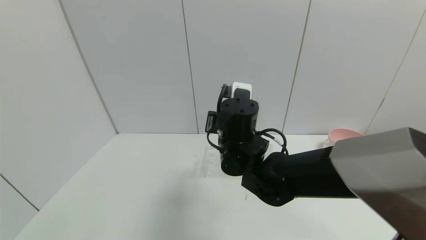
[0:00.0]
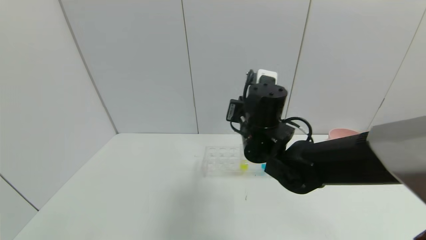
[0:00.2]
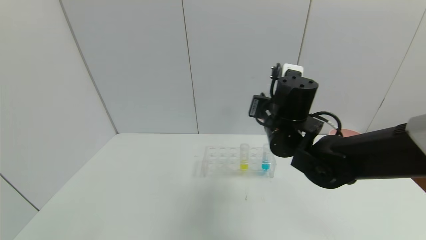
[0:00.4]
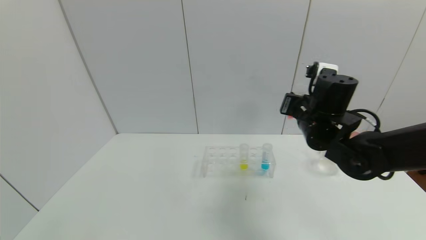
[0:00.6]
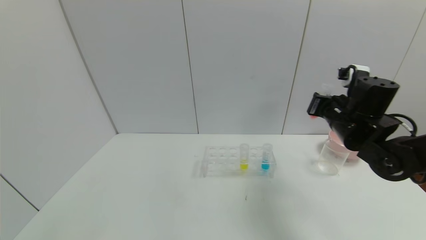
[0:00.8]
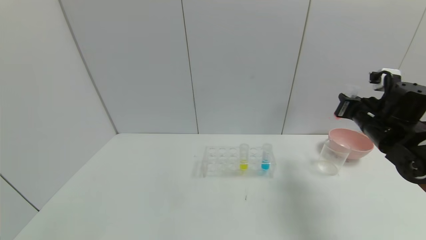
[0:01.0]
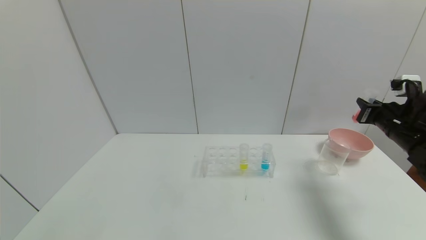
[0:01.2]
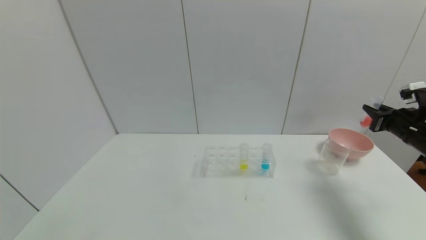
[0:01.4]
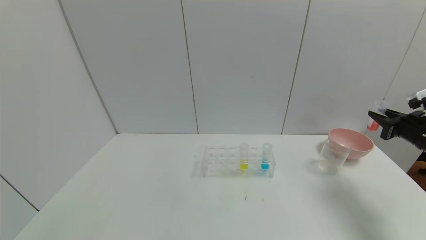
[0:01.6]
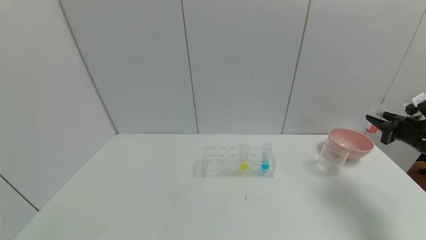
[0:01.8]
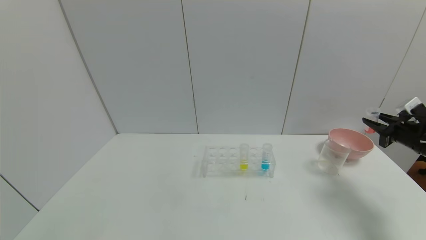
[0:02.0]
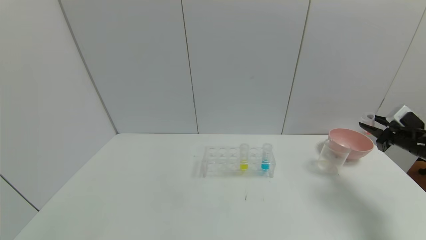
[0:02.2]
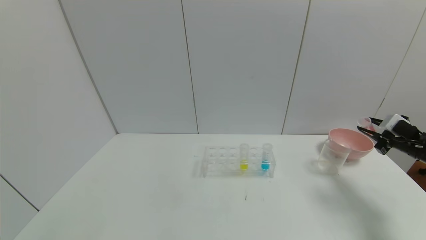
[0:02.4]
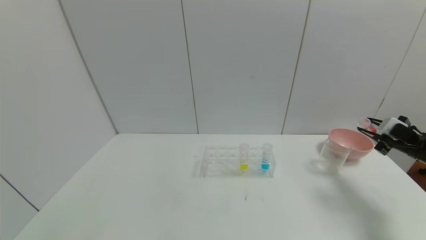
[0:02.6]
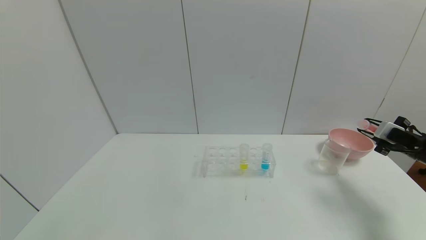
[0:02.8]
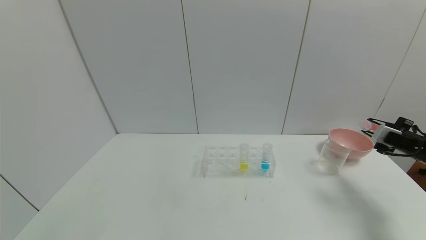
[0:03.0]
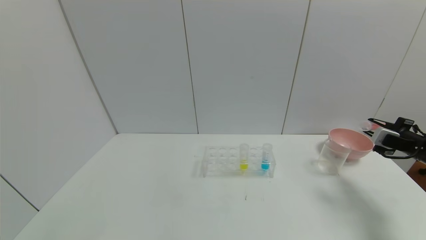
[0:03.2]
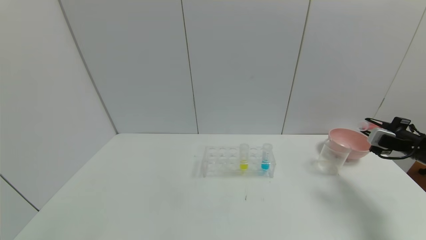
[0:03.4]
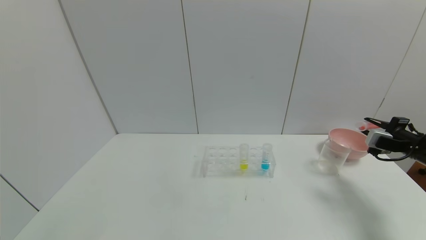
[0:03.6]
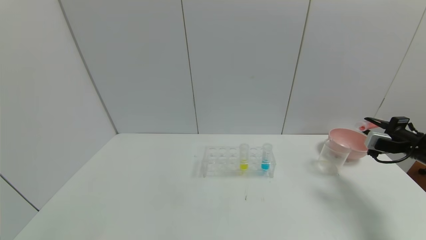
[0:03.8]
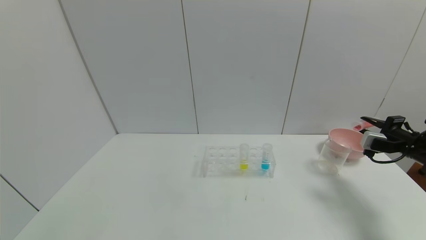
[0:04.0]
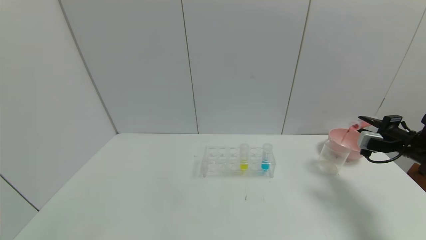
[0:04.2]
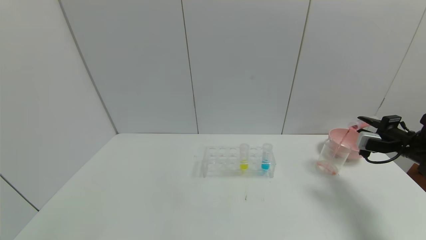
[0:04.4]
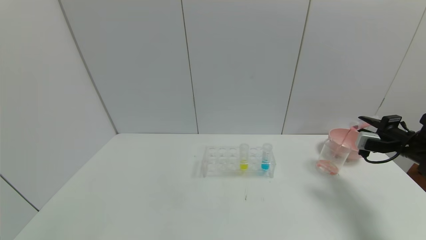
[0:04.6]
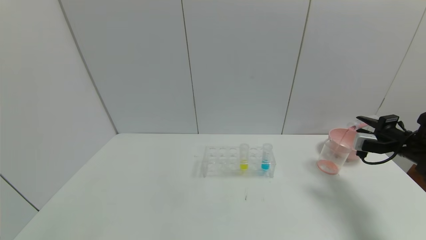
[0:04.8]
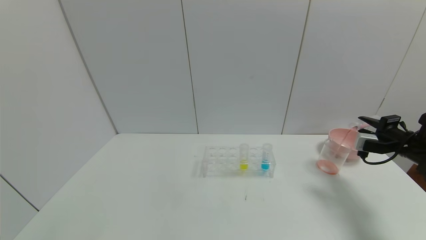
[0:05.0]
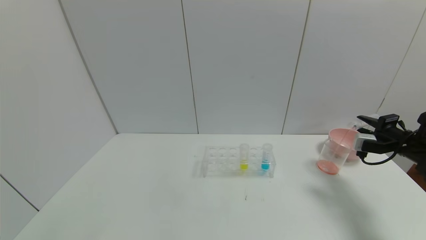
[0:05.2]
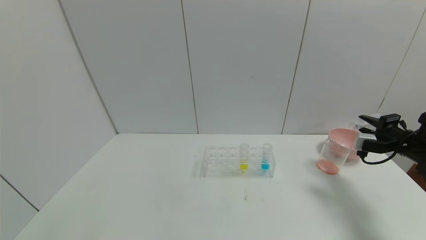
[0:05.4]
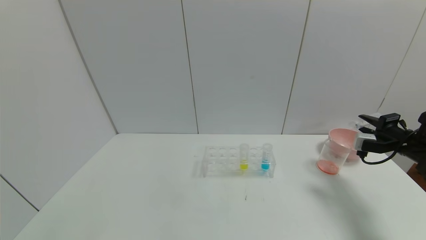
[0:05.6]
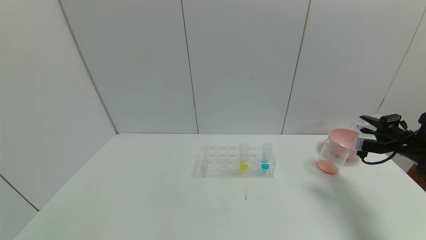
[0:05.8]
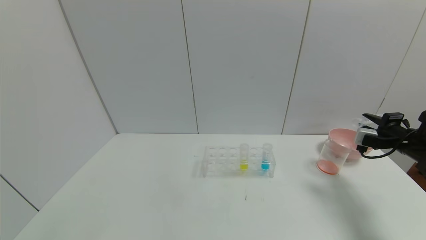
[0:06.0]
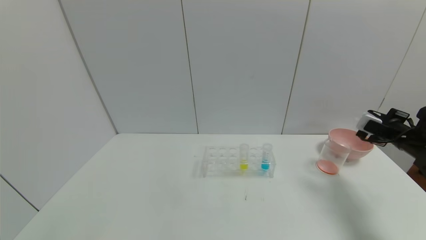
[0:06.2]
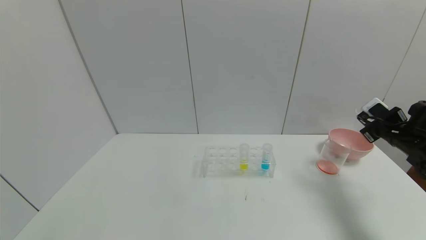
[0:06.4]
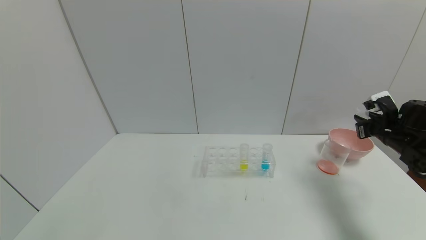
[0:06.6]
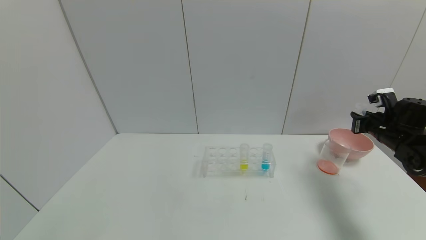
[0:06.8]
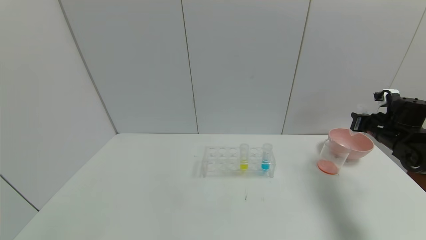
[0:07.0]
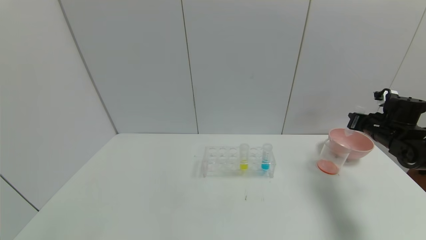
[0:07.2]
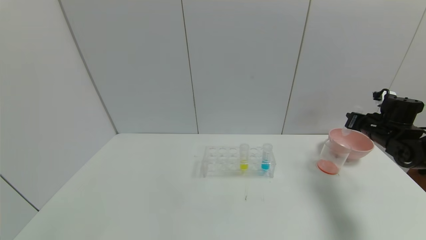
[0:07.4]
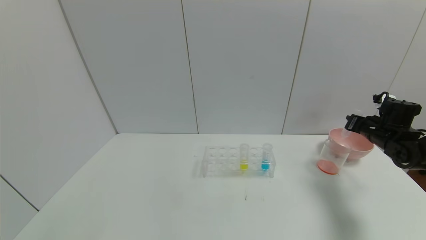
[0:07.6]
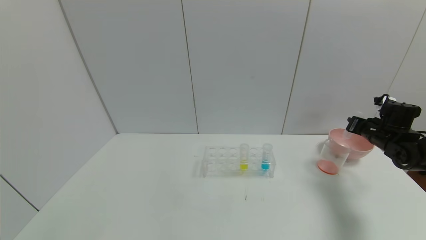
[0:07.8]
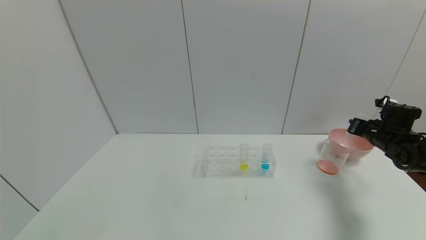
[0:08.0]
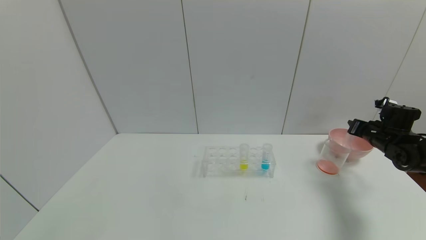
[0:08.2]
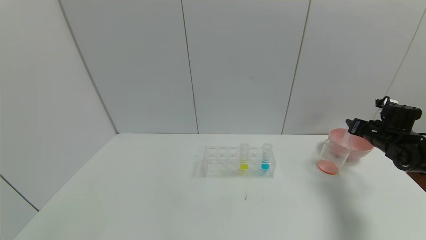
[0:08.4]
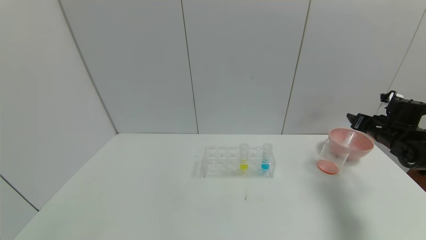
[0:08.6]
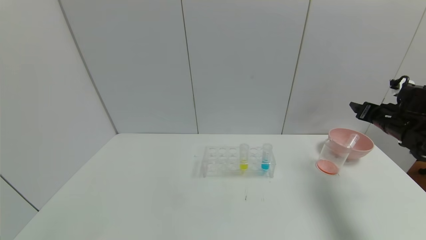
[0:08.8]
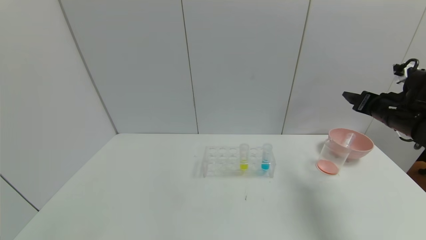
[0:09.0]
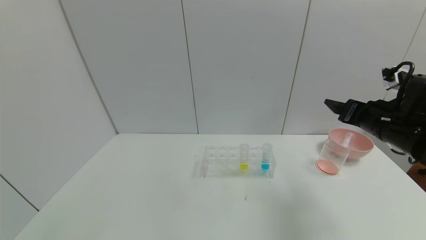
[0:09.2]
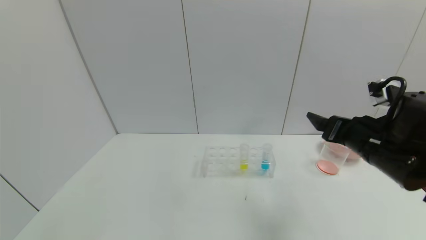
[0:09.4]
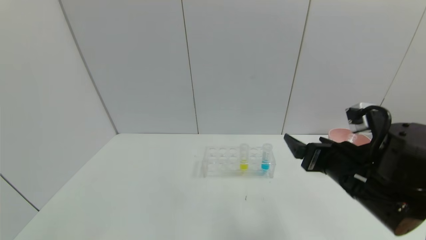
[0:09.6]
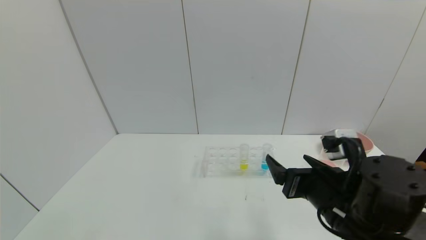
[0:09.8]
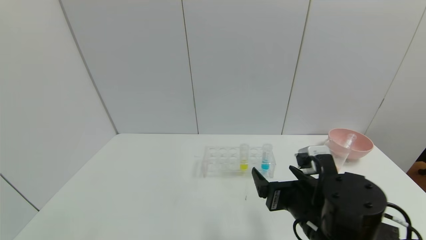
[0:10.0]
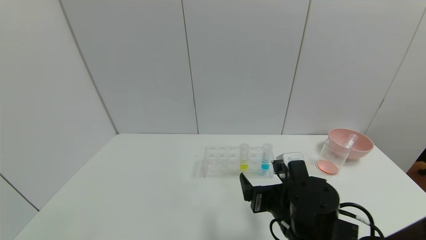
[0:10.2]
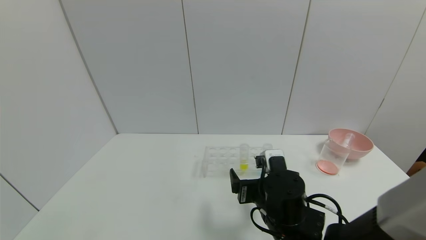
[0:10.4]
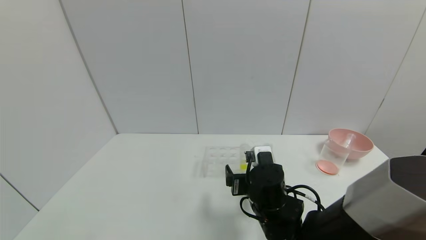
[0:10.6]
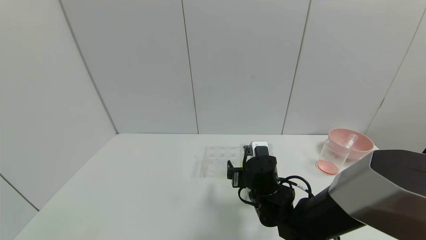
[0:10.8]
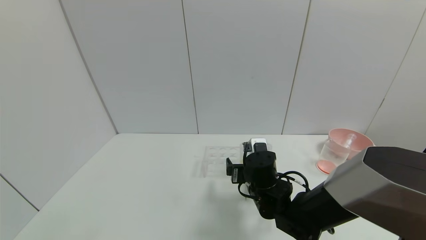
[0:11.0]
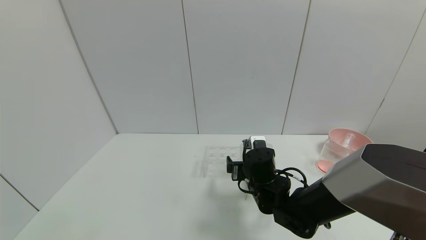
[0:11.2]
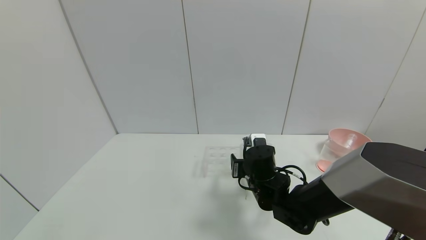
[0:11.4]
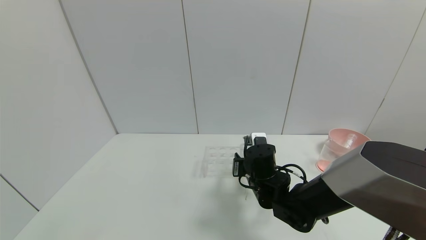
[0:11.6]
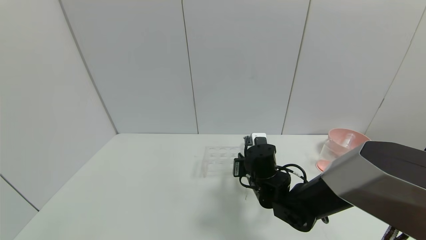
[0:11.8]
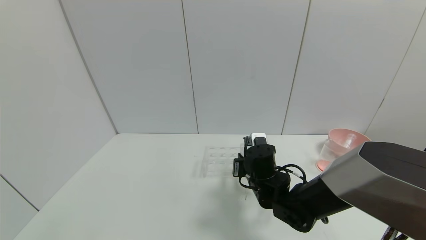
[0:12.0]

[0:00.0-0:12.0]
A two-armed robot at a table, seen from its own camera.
Task of the whole recording: pick up the test tube with yellow pigment and the test tube with red pigment by grippers and pour them into the beaker.
Step, 0.0 to 5.8 s: Pour the red reagent into the graduated cylinder with the right gripper.
Step, 6.0 to 8.4 s: Place the test tube into the bowl with the right gripper.
Step, 8.6 to 11.8 s: Grasp the yellow reagent with the right gripper.
0.0 to 1.6 s: The right gripper shifts roughly 40 cm to the right.
3.0 to 4.4 s: There are only small adjustments of the grippers.
4.4 to 6.0 s: There are only small adjustments of the grippers.
6.0 to 7.6 s: The right gripper heads forward, covering about 5 cm.
7.6 to 9.0 s: The right gripper heads upward, backward and to the left, covering approximately 10 cm, and opens up.
9.0 to 10.4 s: The right gripper heads to the left and downward, covering about 30 cm.
10.4 to 12.0 s: The right gripper shifts about 10 cm forward, and closes.

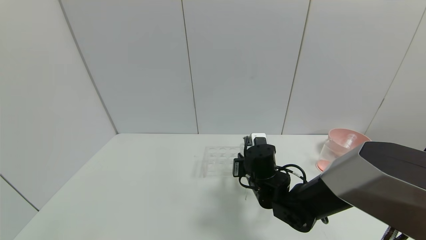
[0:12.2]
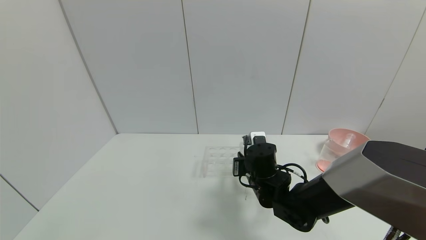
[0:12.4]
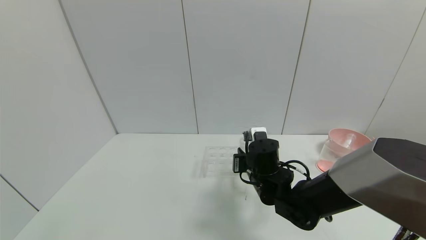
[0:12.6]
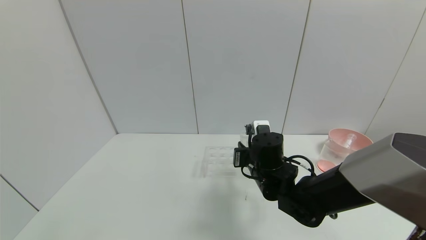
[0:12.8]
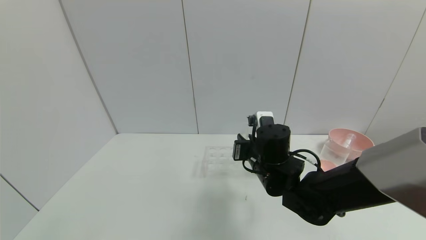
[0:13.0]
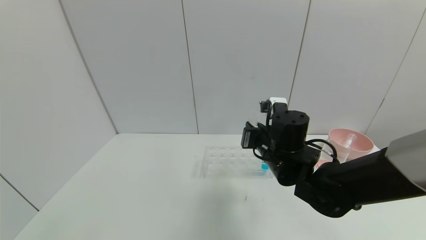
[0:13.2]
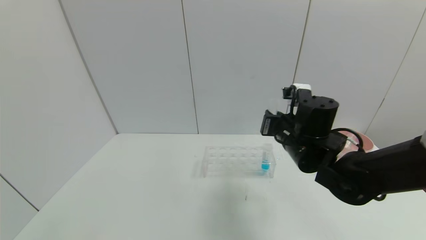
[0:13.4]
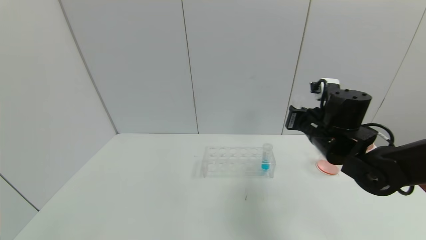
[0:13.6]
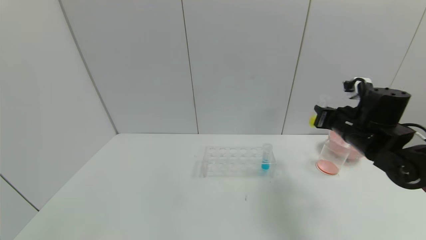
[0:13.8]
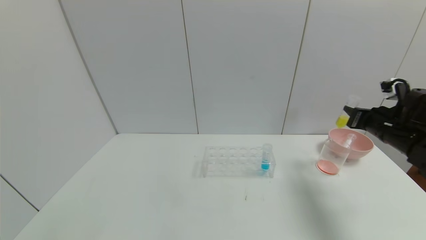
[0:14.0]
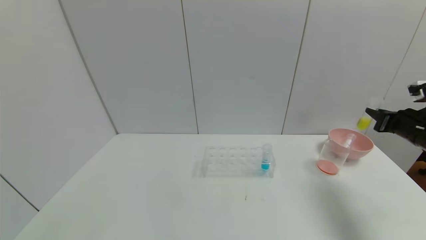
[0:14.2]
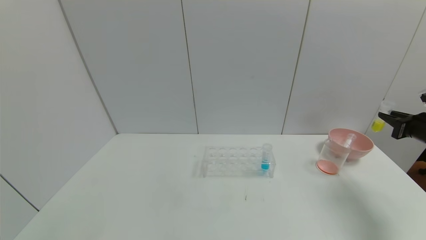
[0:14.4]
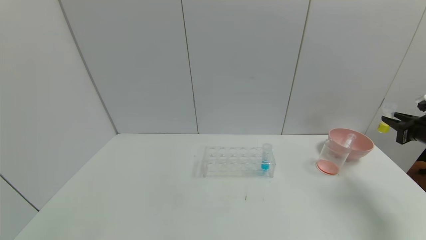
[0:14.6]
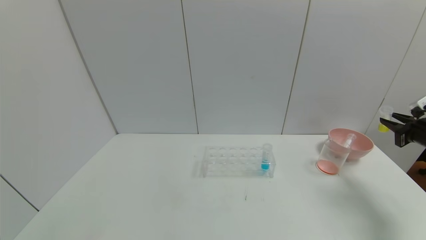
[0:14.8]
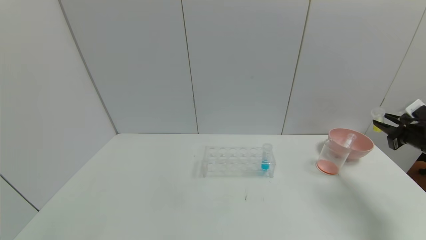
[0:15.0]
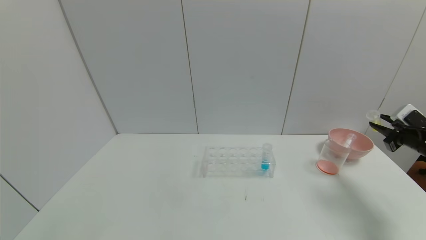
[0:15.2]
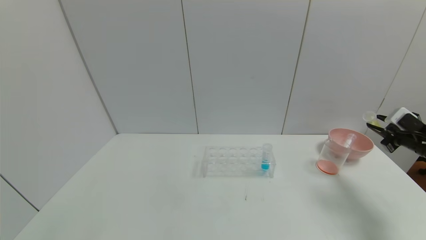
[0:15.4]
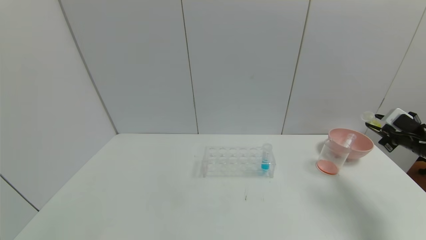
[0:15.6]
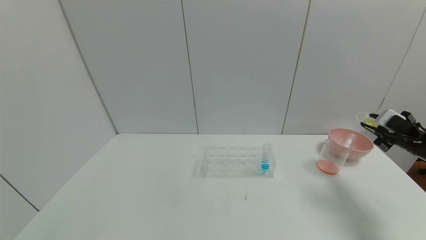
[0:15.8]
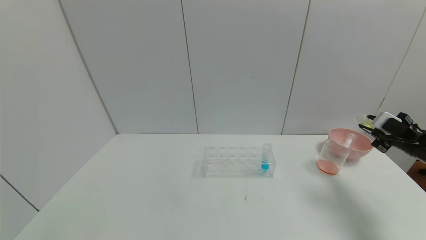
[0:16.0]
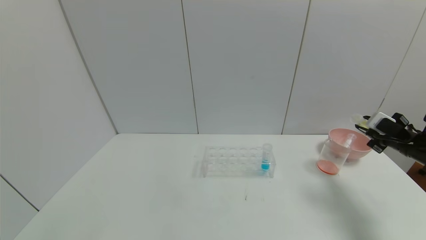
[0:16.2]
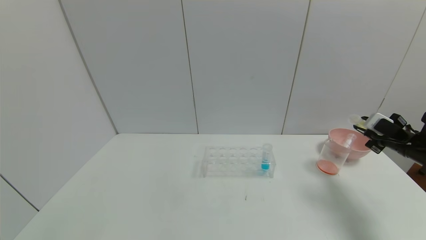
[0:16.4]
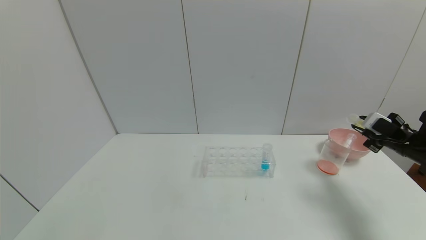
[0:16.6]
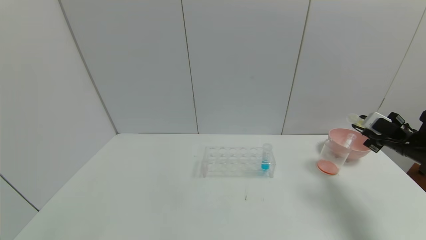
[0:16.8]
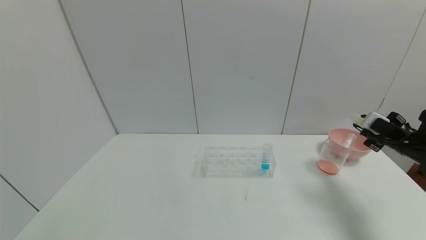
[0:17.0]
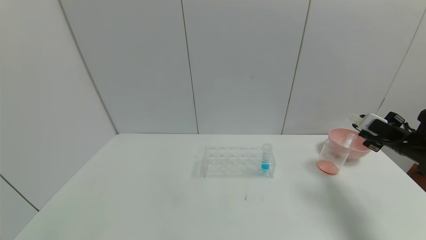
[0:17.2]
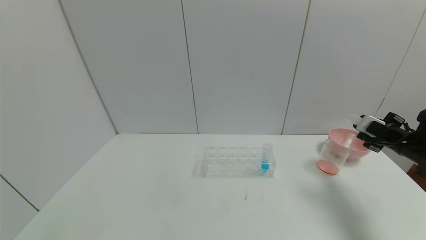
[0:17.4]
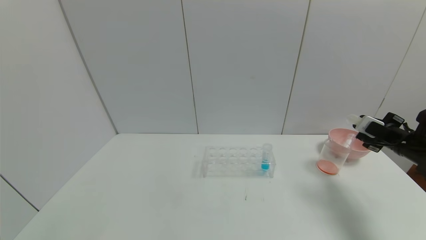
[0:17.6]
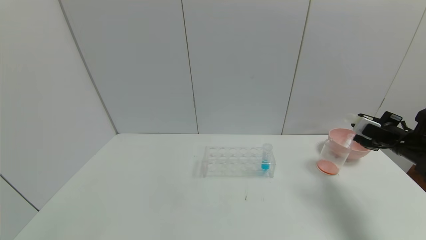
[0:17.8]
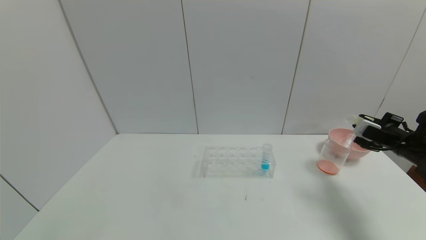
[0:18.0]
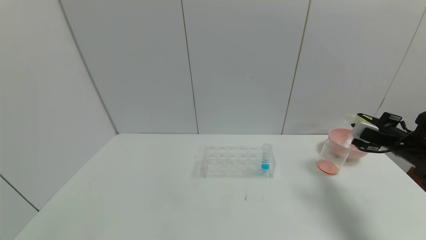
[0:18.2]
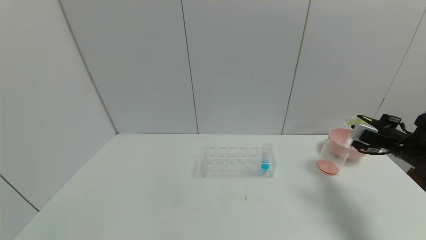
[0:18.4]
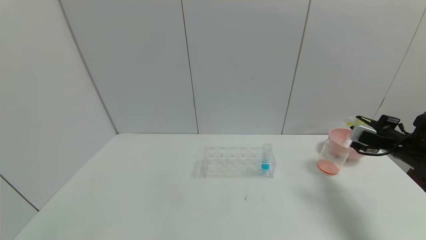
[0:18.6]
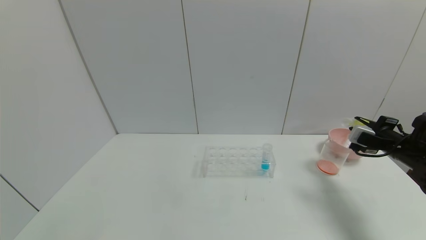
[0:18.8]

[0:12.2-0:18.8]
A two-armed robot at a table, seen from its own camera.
Task of the whole recording: pick up the test tube with yellow pigment and the test tube with red pigment by grippers and pour them into the beaker.
12.2 to 13.8 s: The right gripper moves to the right and upward, about 25 cm.
13.8 to 15.4 s: The right gripper heads to the right, covering some 20 cm.
15.4 to 17.2 s: The grippers move only a little.
17.2 to 18.8 s: There are only small adjustments of the grippers.
